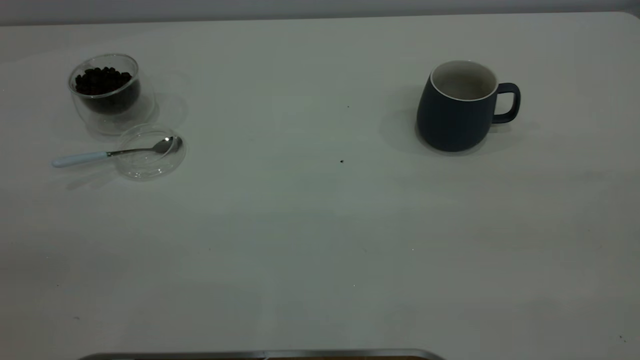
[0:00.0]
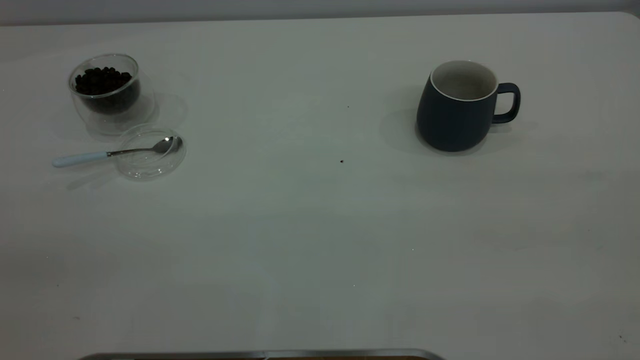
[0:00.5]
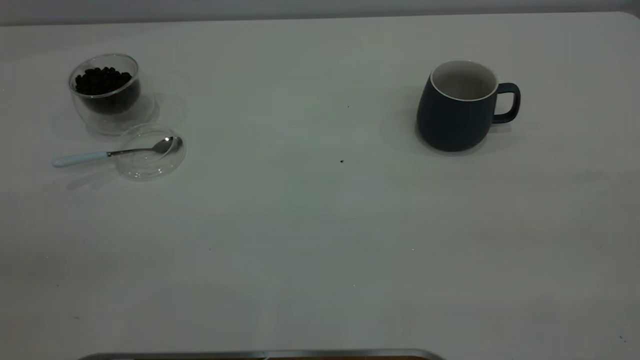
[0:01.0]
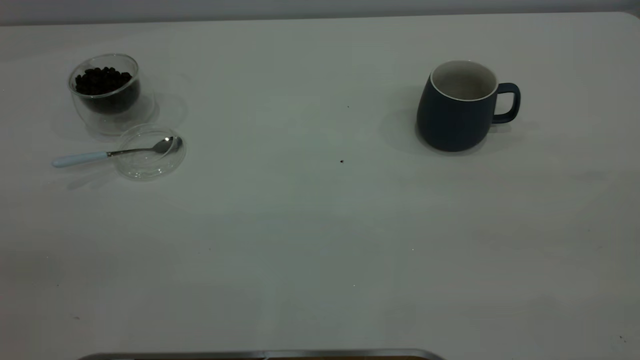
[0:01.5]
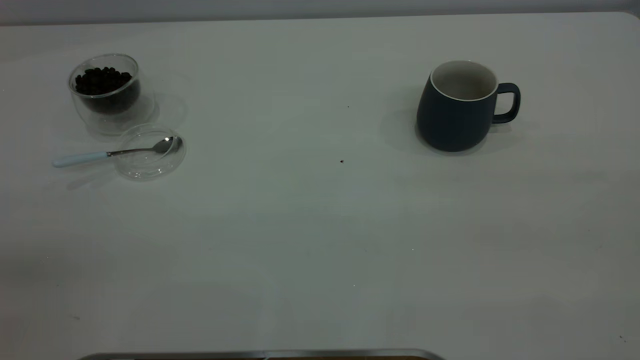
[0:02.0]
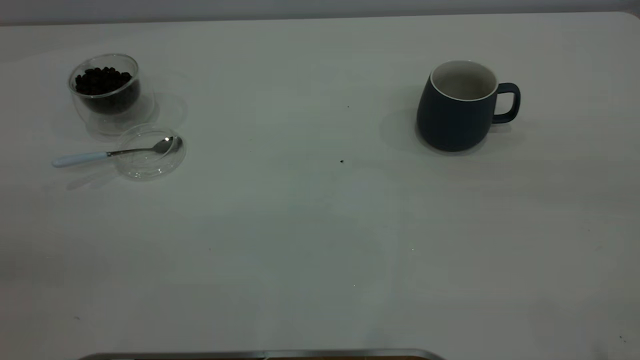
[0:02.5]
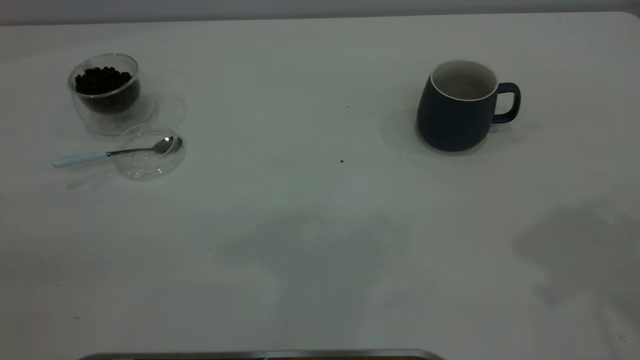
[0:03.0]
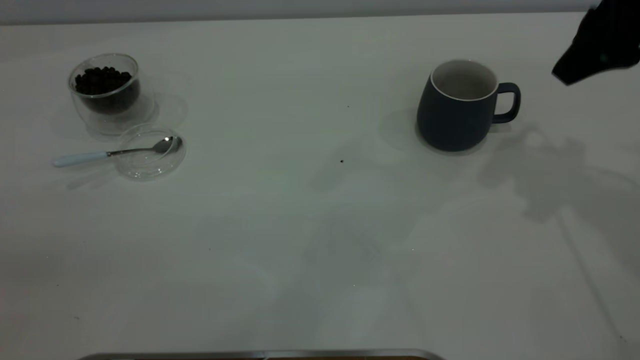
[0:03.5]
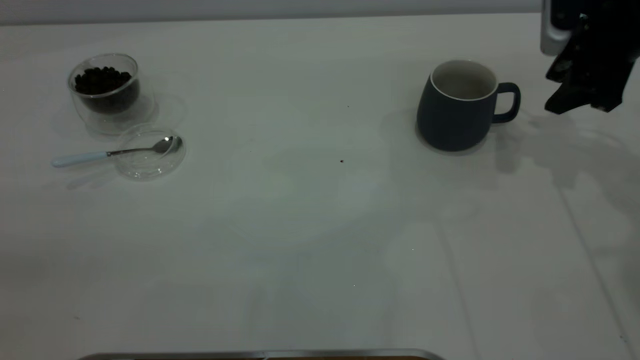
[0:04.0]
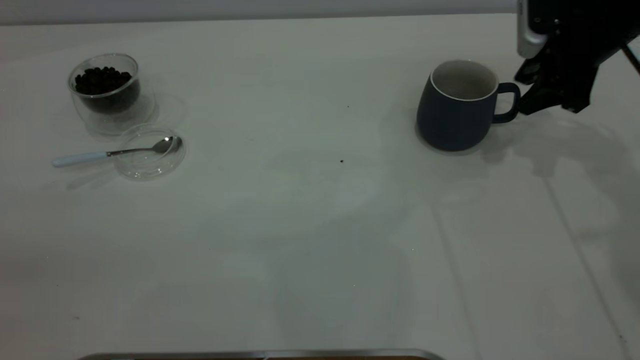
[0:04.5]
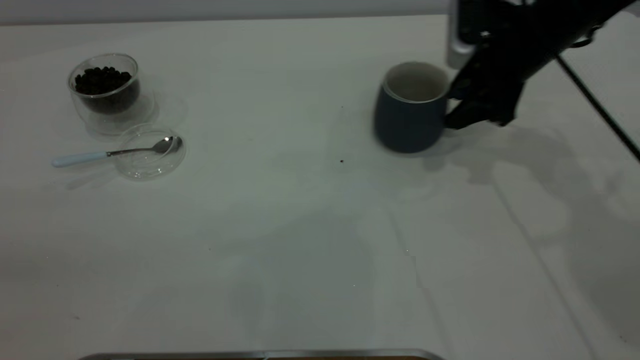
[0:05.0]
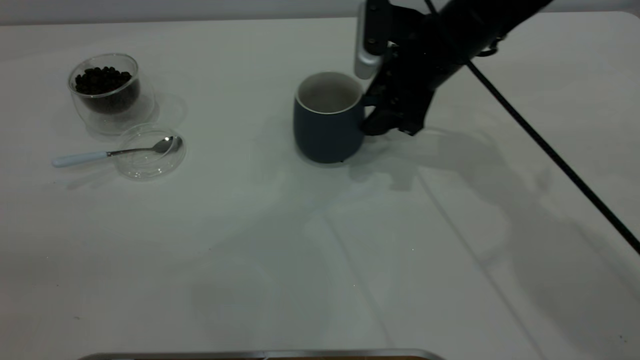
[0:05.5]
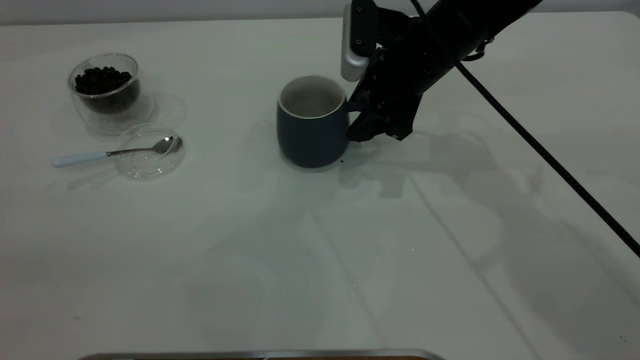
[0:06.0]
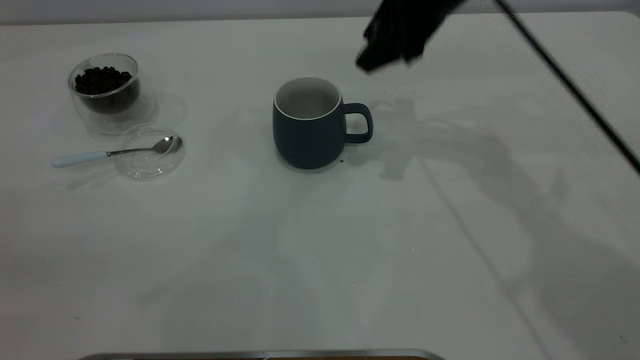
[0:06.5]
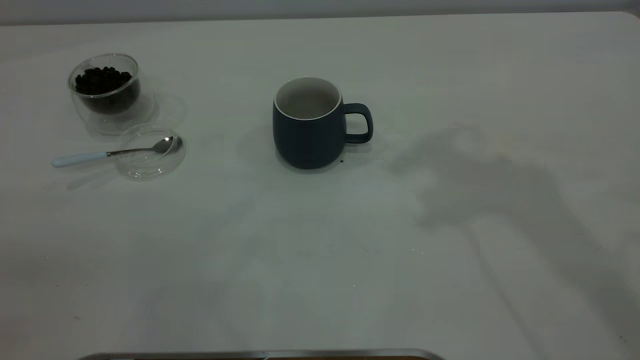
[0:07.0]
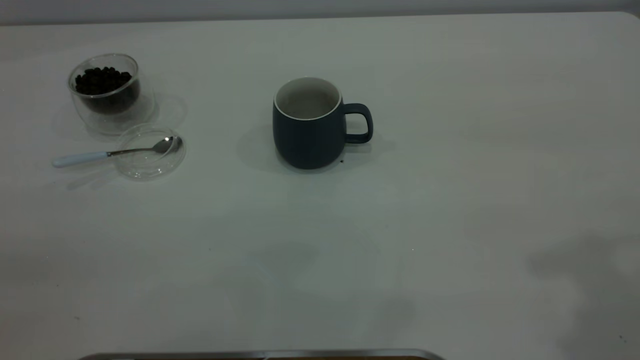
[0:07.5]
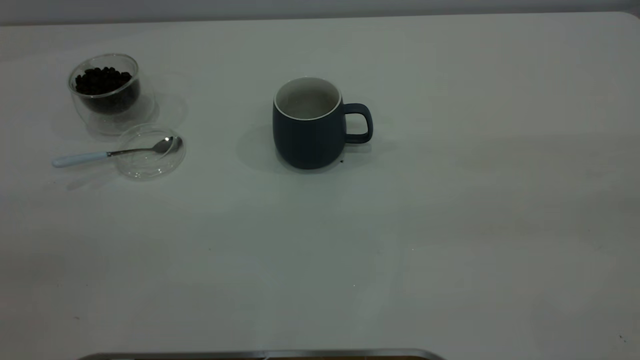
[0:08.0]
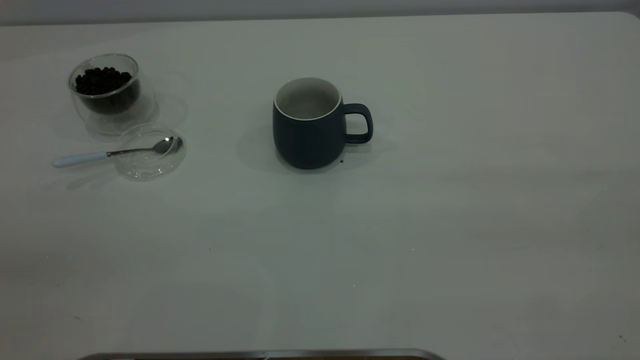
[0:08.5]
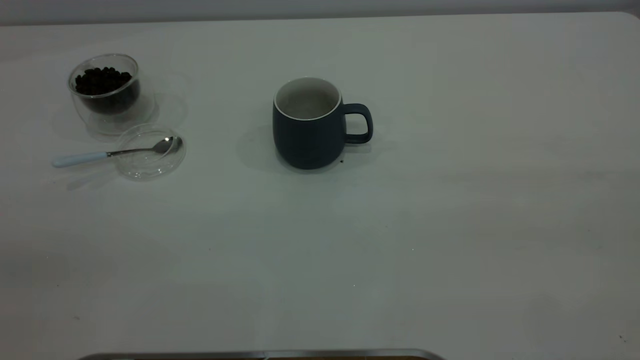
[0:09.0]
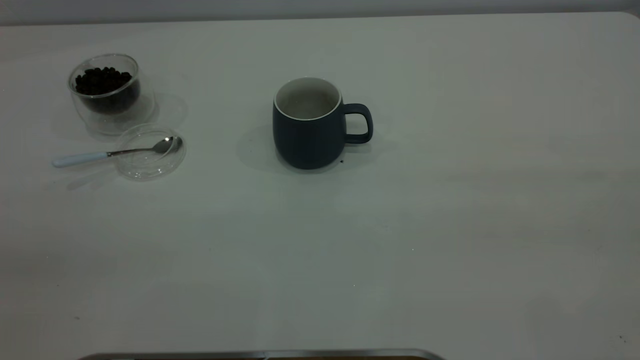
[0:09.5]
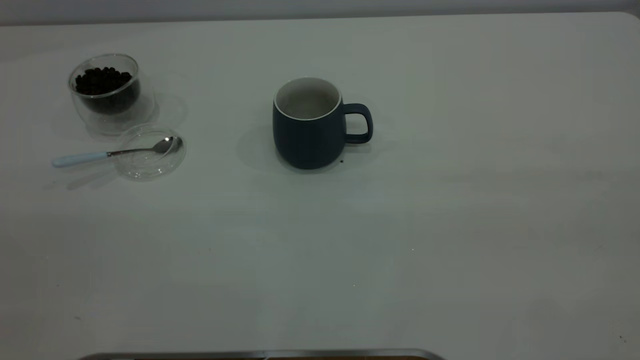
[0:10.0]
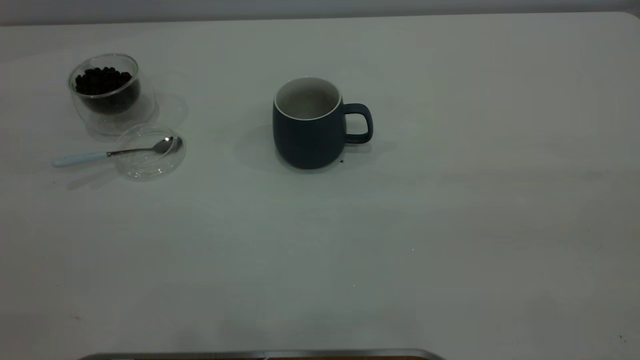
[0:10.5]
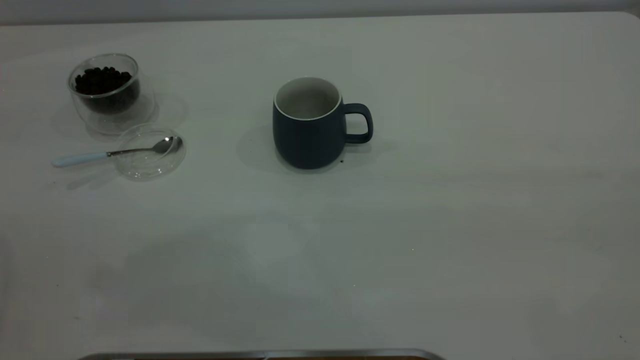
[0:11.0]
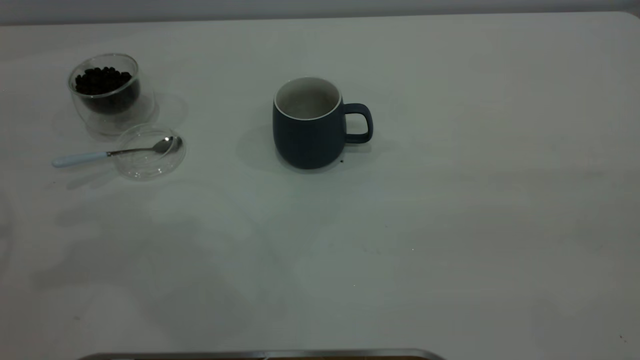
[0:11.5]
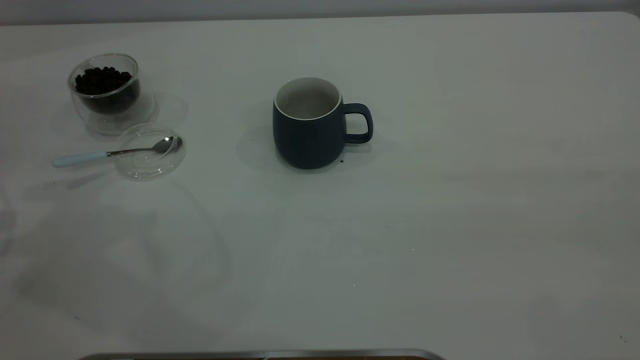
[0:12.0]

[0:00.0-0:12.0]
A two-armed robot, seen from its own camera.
Task of the whole recording: the right gripper place the grey cup in the center of the table, the left gripper take the blue spoon from the cup lid and scoop out the coffee beans from the coffee cup and put them into the grey cup, the left gripper put the spoon back into the cup lid.
Step, 0:00.0 to 0:06.5: Move the cup to the center of view.
0:00.0 to 0:02.0: Neither gripper changes place.
0:02.0 to 0:04.0: The right gripper shifts roughly 50 cm forward and downward, and opens up.
0:04.0 to 0:06.0: The right gripper shifts about 20 cm to the left.
0:06.0 to 0:08.0: The right gripper travels backward, upward and to the right by some 50 cm.

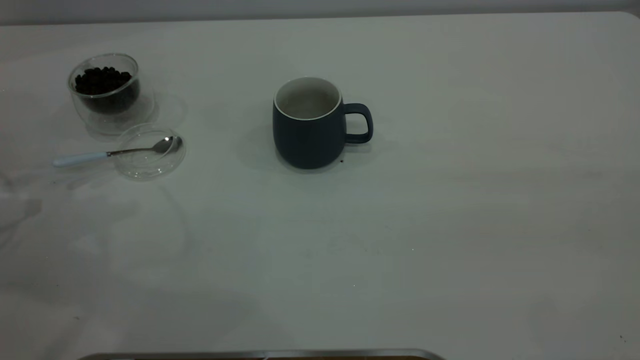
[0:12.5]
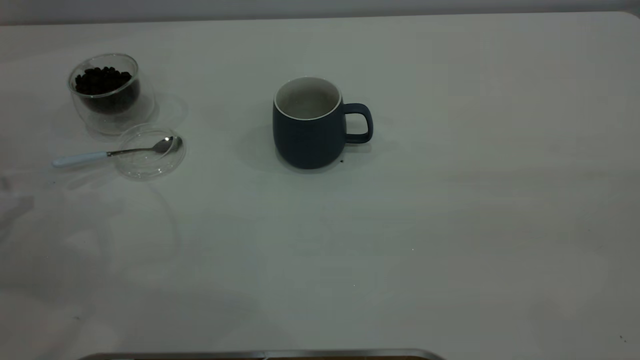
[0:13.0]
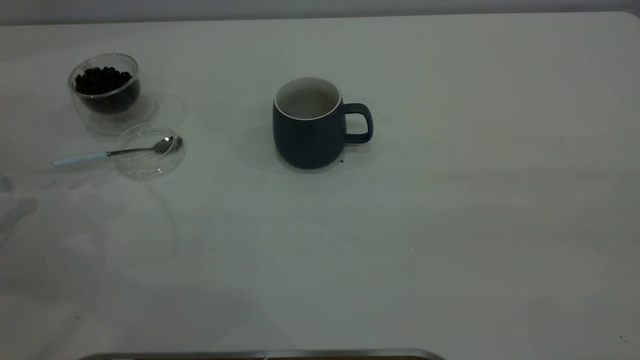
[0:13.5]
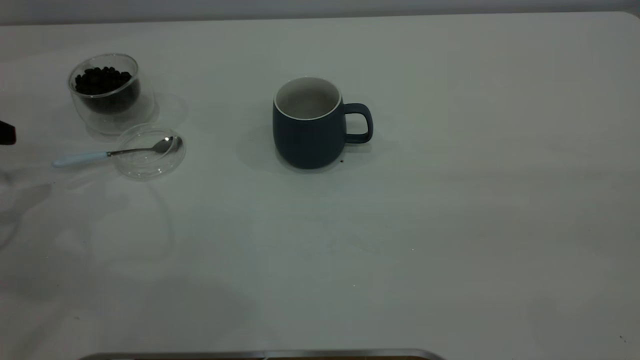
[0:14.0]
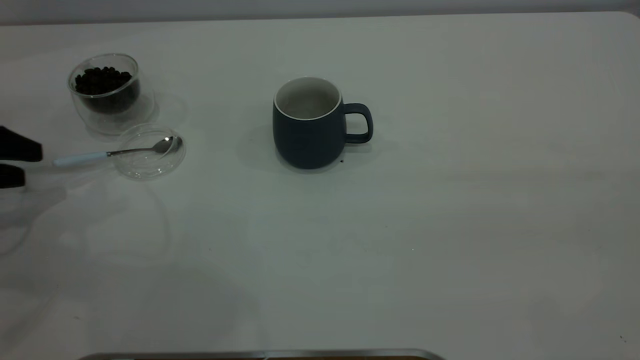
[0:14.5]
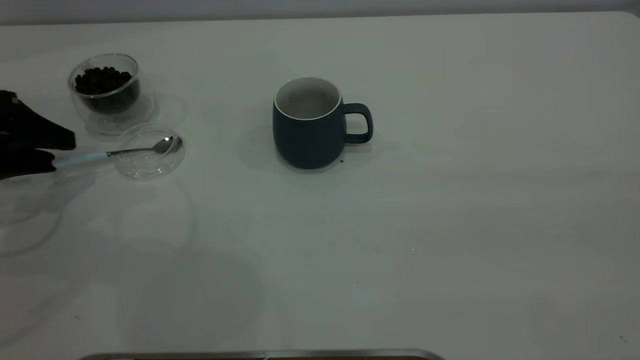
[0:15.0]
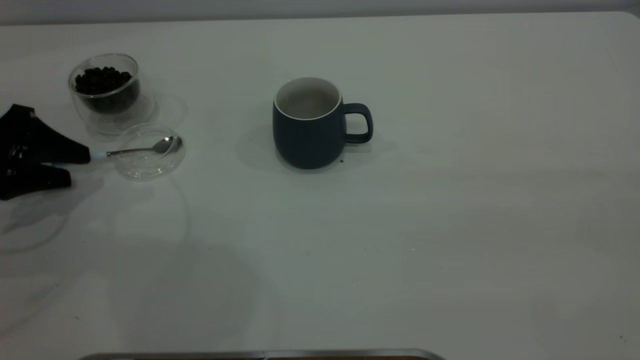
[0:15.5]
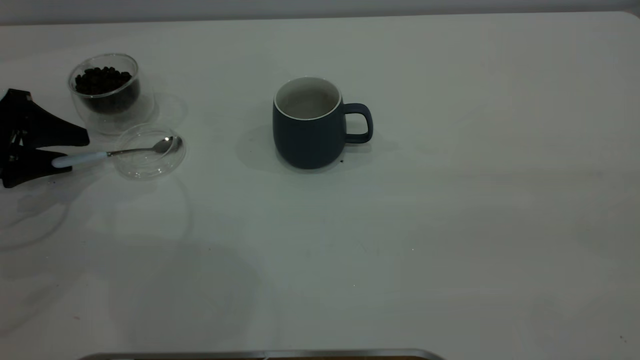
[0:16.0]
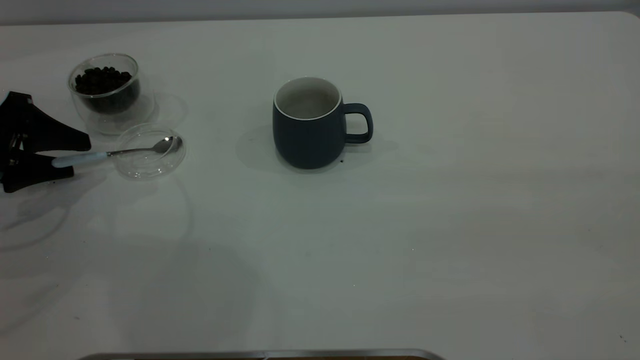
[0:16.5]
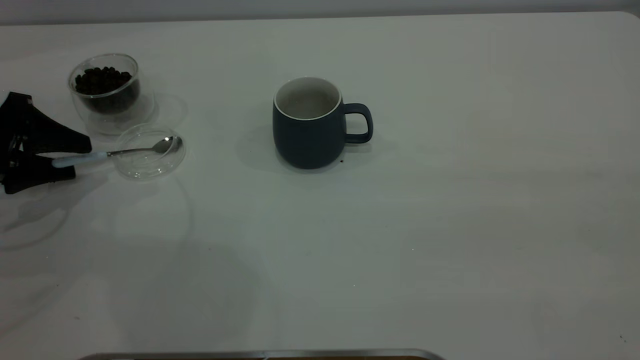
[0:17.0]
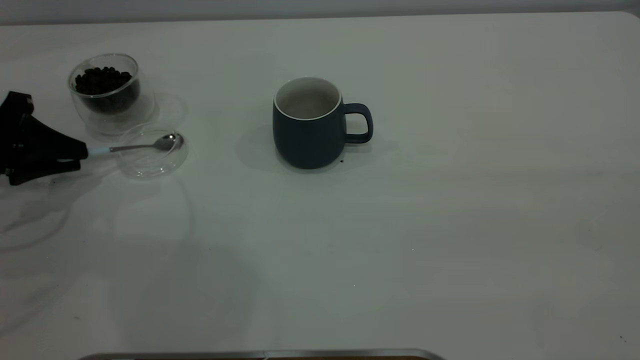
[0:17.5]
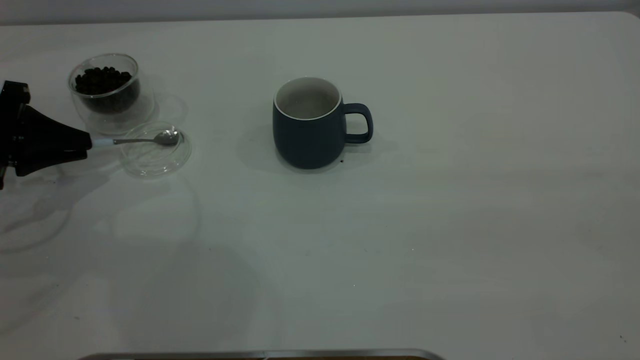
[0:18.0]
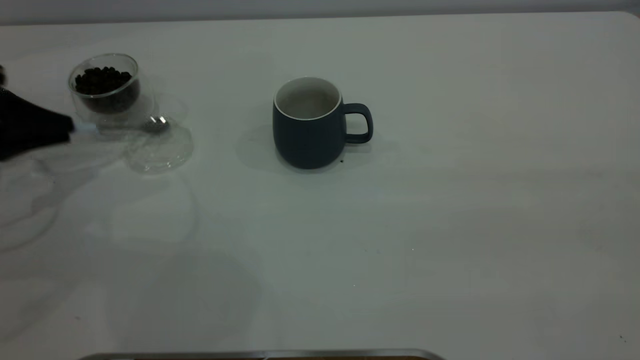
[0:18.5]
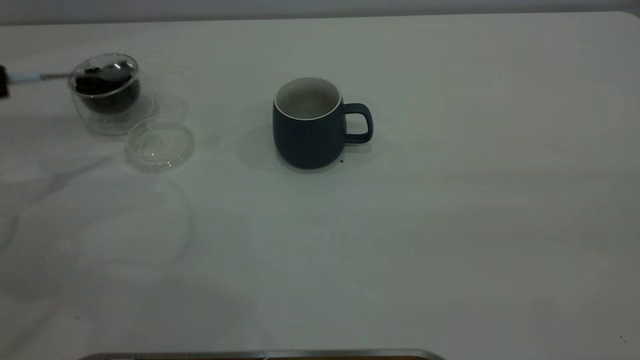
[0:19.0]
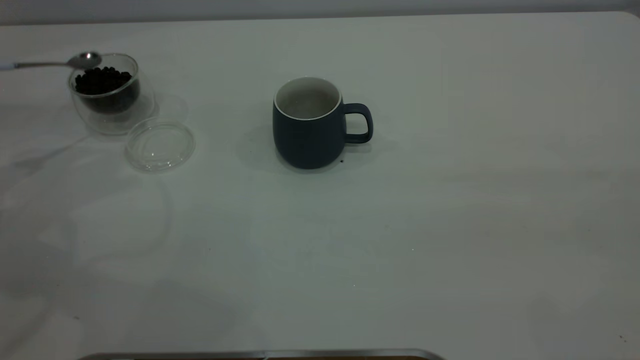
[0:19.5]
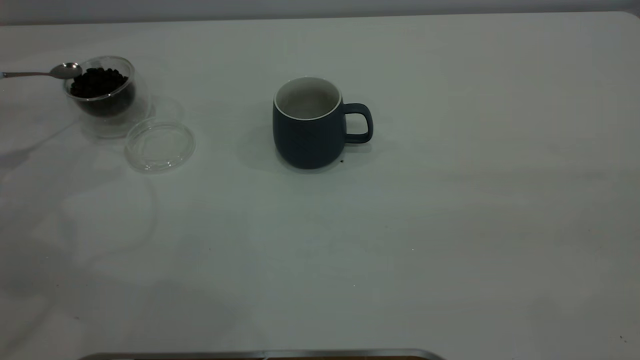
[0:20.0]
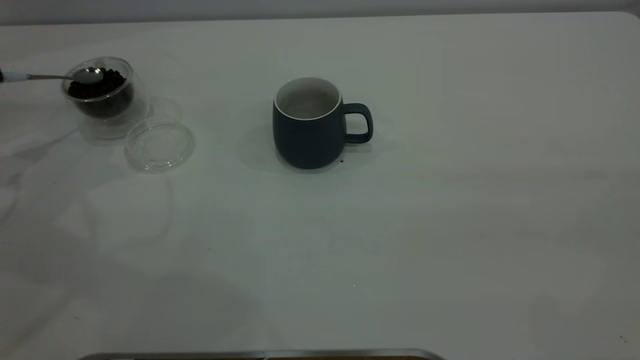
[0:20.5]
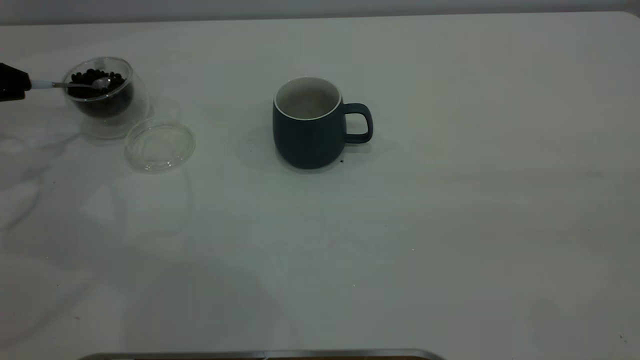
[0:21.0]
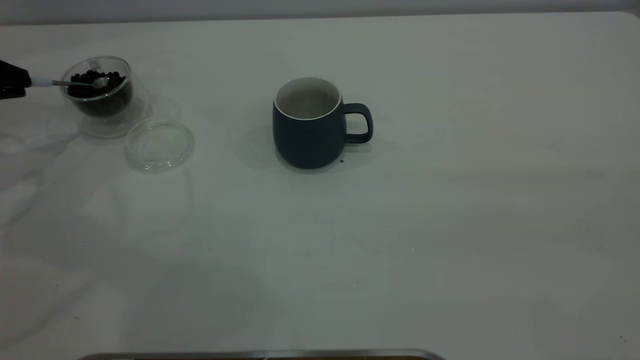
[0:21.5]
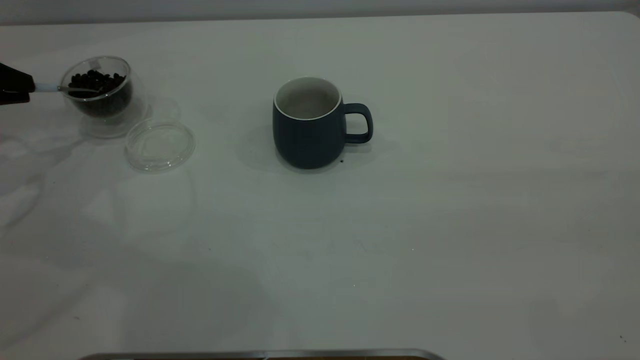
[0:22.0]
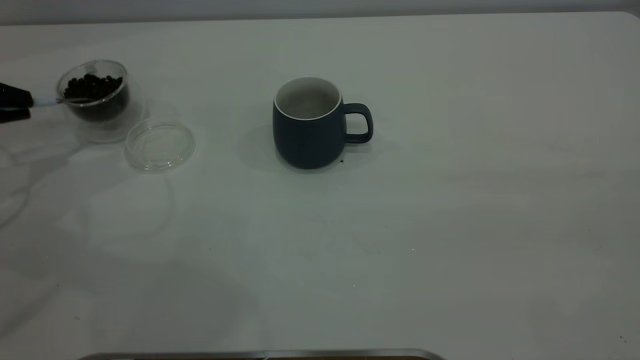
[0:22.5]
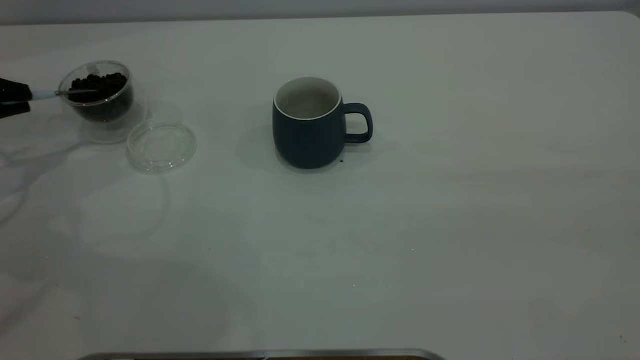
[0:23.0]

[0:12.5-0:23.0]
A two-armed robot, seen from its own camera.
Task of the whole recording: the right gripper place the grey cup in the center of the table, the left gripper take the blue spoon from the cup lid and scoop out the coffee beans from the coffee cup and put them into the grey cup, the left gripper put the spoon back into the cup lid.
Step, 0:12.5 to 0:19.0: Pick up the spoon.
0:12.5 to 0:14.5: The left gripper shifts about 5 cm downward.
0:14.5 to 0:16.5: There are only small adjustments of the grippers.
0:16.5 to 0:19.0: The left gripper travels upward by approximately 10 cm, and closes up.
0:21.0 to 0:23.0: The grippers make only small movements.
